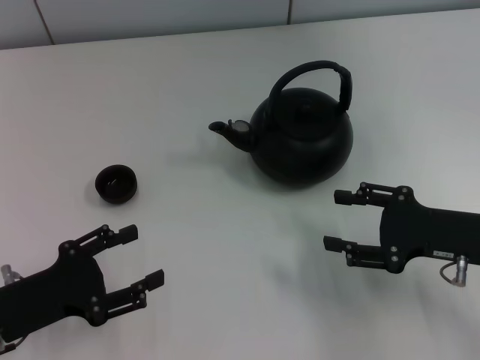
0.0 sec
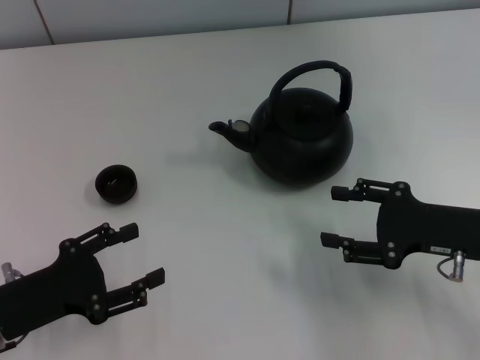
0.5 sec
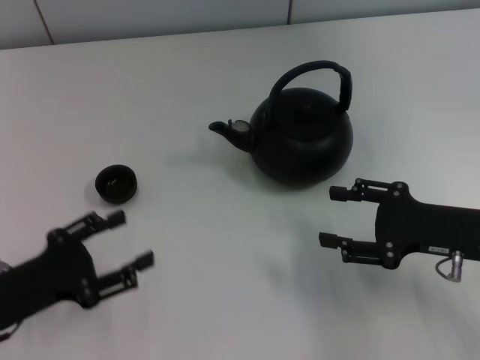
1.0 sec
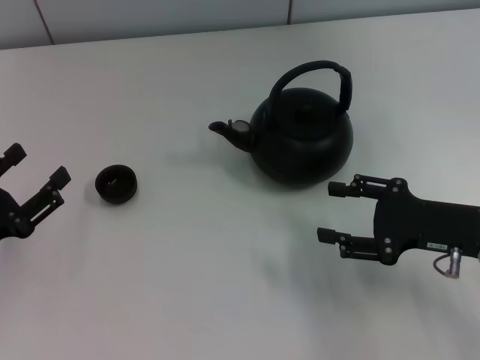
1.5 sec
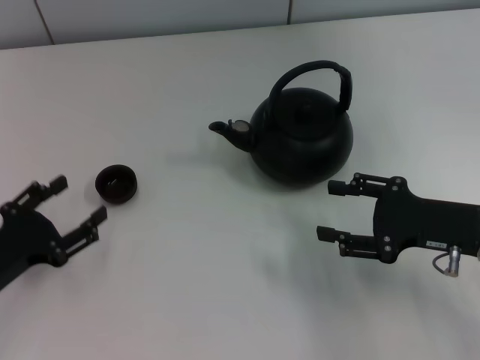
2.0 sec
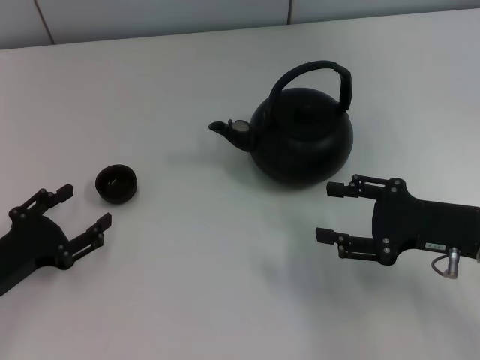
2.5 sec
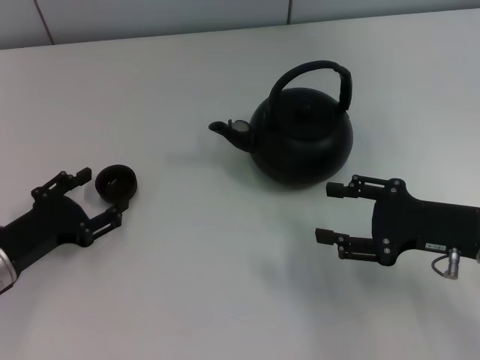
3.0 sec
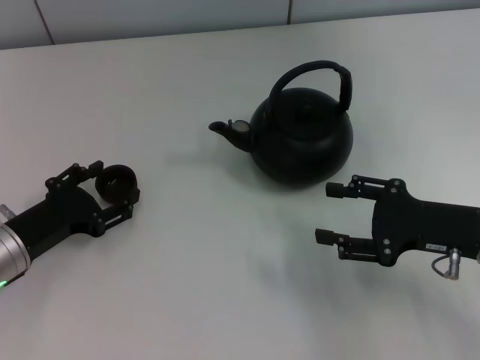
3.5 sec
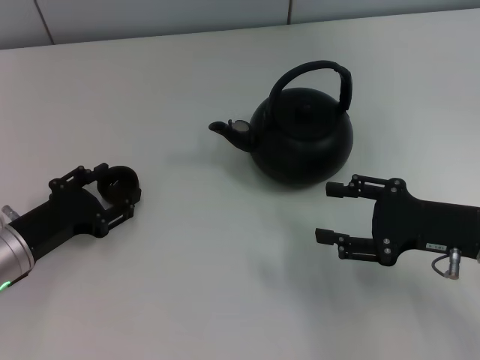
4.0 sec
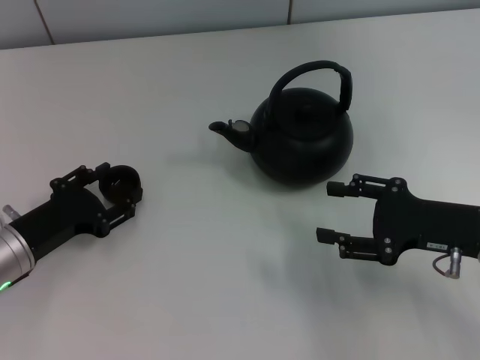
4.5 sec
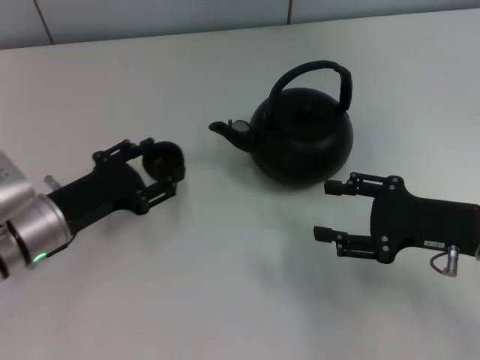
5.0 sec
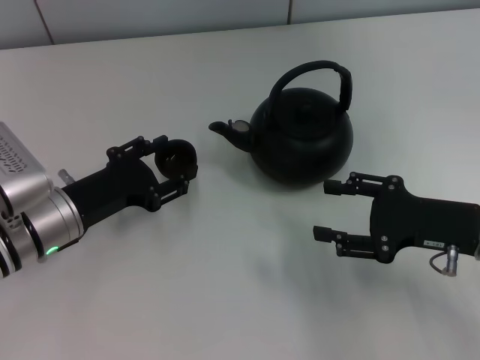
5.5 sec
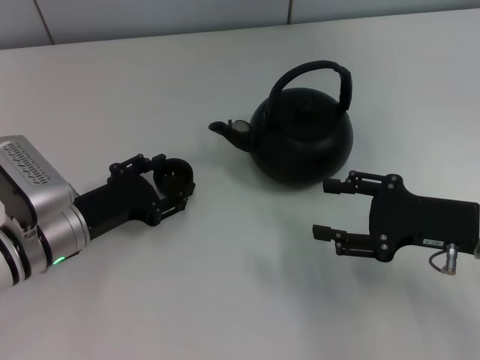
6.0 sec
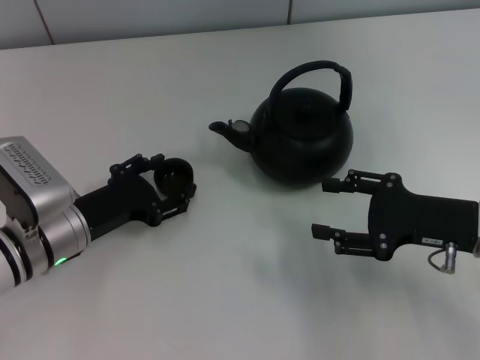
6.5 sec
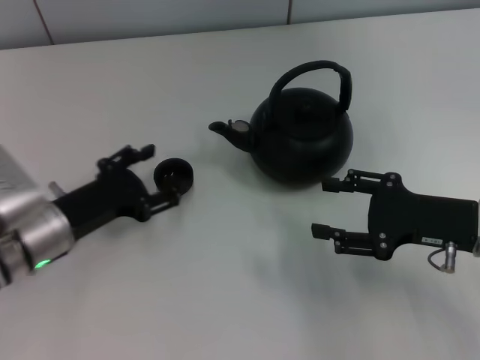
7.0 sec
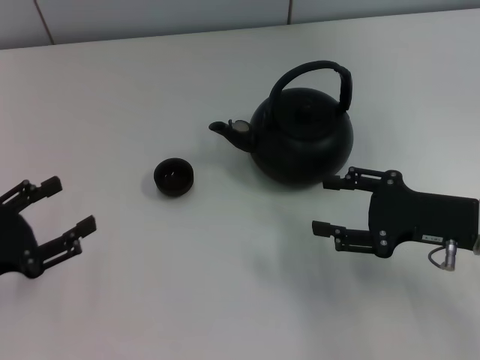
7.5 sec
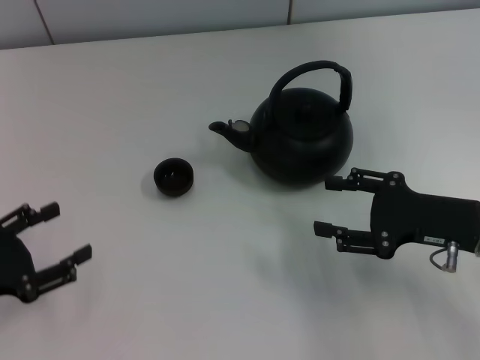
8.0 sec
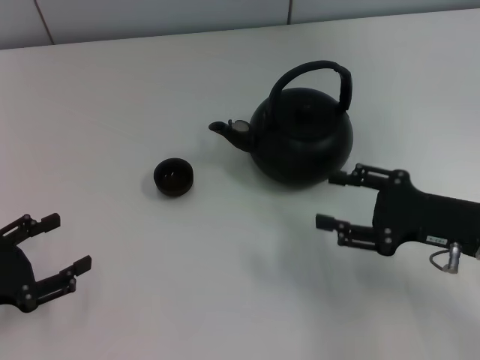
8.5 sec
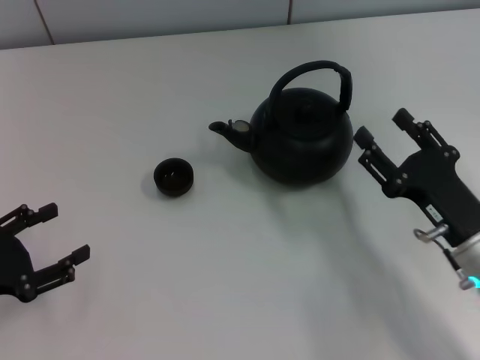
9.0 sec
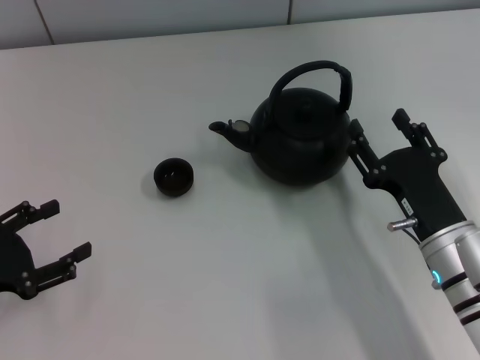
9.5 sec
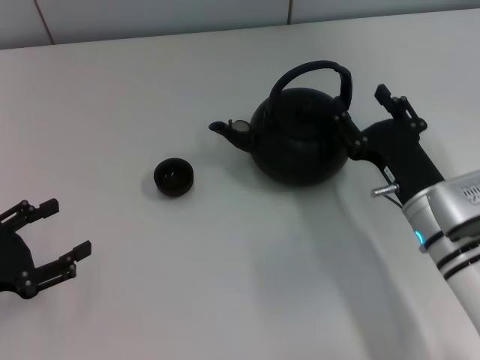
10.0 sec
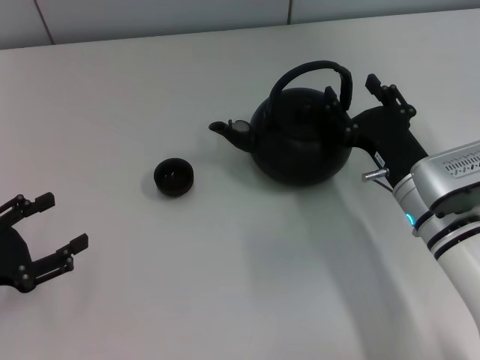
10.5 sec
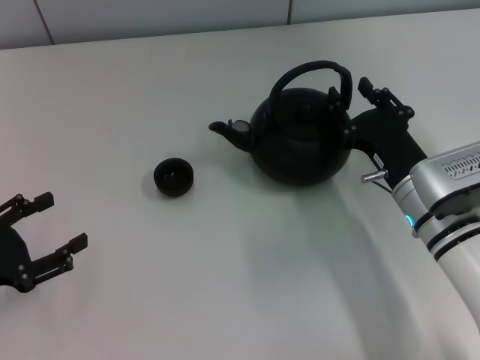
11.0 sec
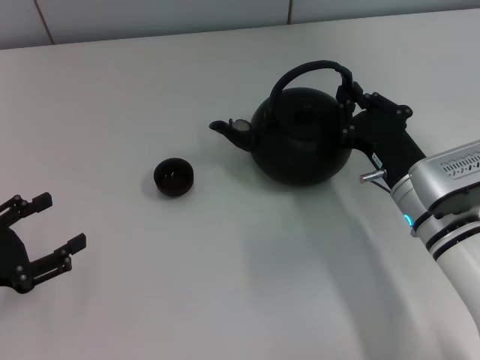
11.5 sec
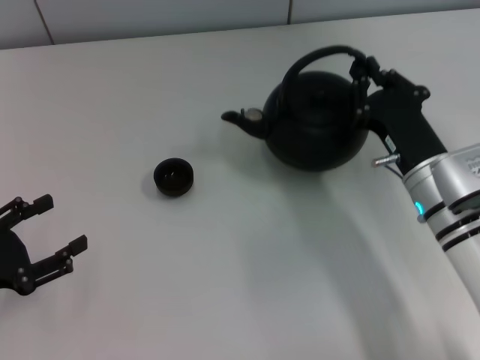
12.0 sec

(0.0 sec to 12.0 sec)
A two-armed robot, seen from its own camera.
Task of the whole recording: Grasp the handle of the teapot with one hand and pour tea into the teacup.
Step, 0.0 sec - 5.0 sec: Pick up the teacup with the left gripper.
Step, 5.5 sec - 7.0 sec: Place the teacup in the center of view with the left gripper.
2.0 sec - 4.0 sec: The left gripper is displaced forward by some 5 cm.
4.0 sec - 6.0 sec: The left gripper is displaced to the right by approximately 5 cm, and closes up.
6.0 sec - 8.0 sec: The left gripper heads to the left and backward, covering about 15 cm, and opens up.
8.0 sec - 10.0 sec: The right gripper goes roughly 10 cm to the left.
10.0 sec - 12.0 sec: The right gripper closes up.

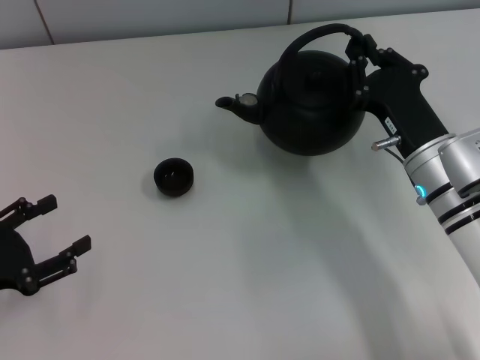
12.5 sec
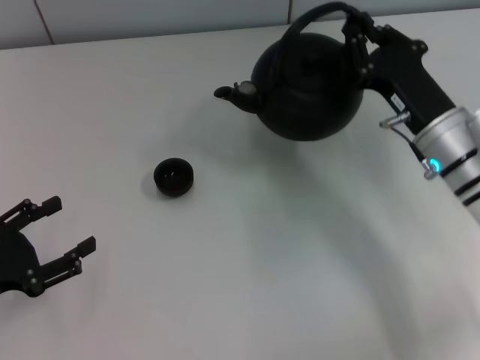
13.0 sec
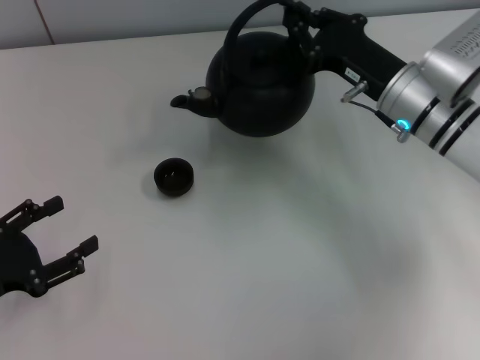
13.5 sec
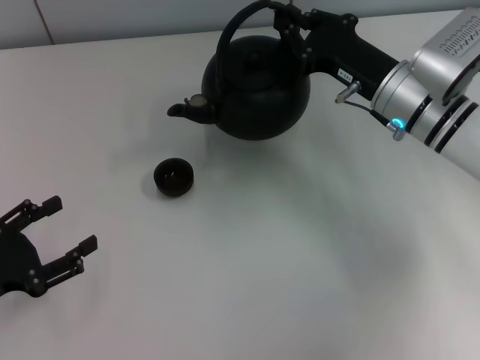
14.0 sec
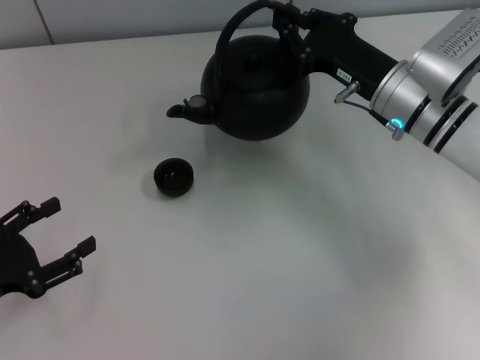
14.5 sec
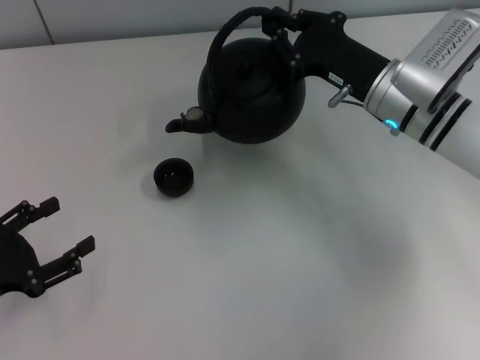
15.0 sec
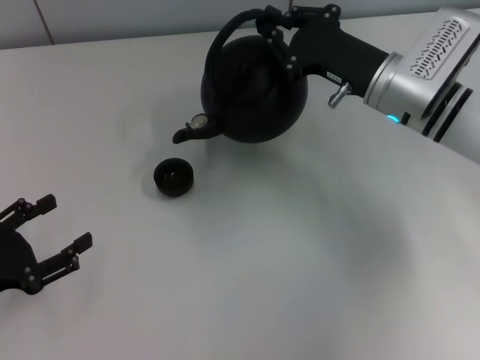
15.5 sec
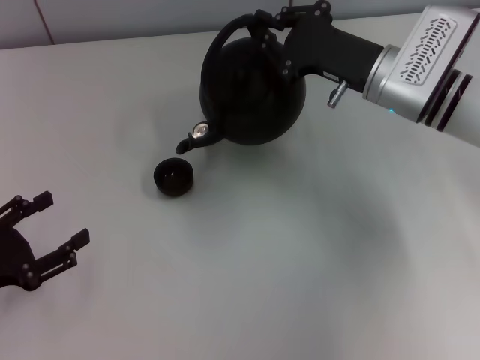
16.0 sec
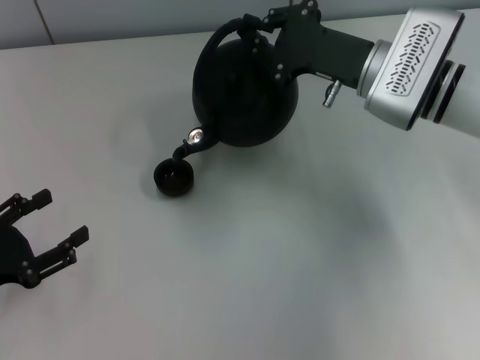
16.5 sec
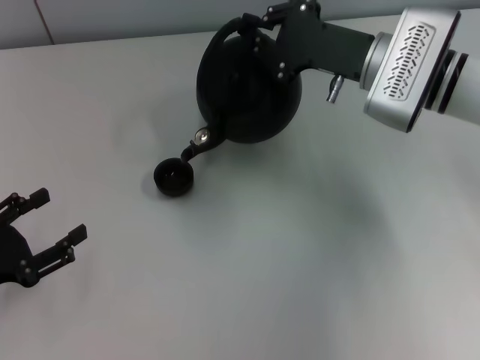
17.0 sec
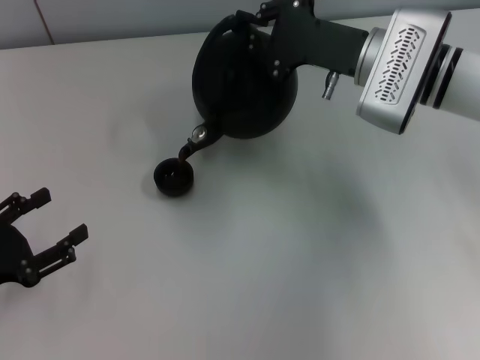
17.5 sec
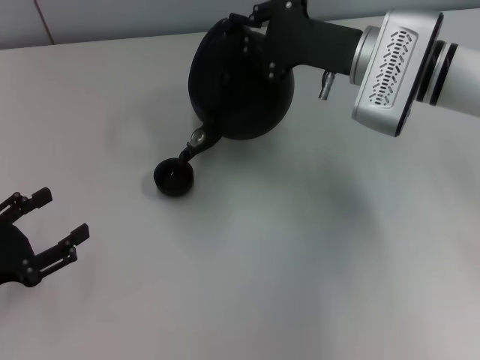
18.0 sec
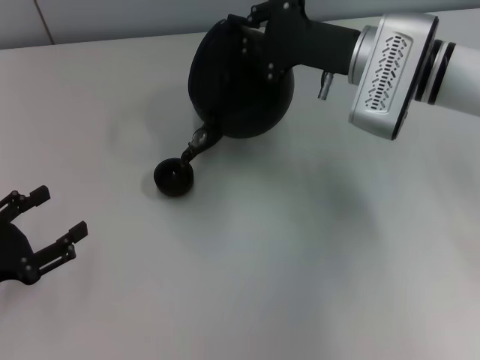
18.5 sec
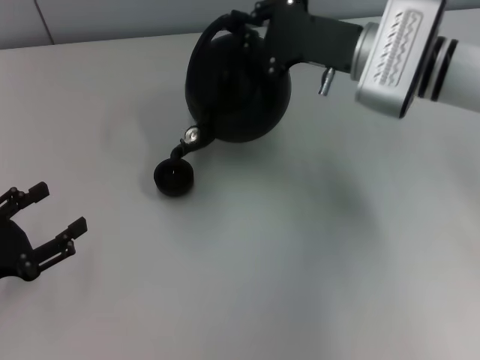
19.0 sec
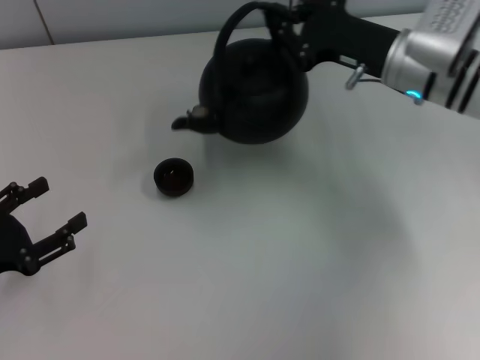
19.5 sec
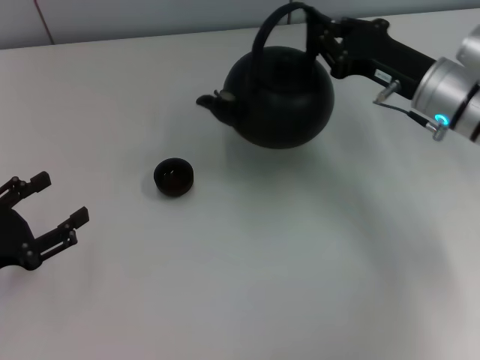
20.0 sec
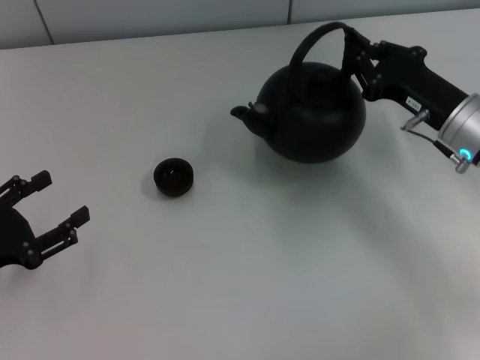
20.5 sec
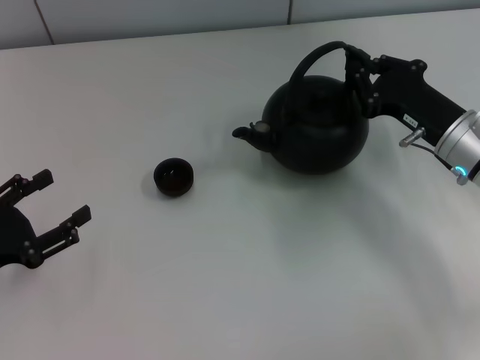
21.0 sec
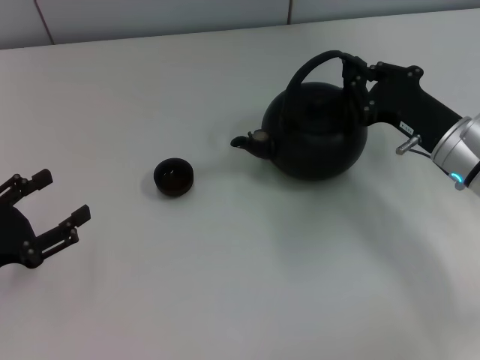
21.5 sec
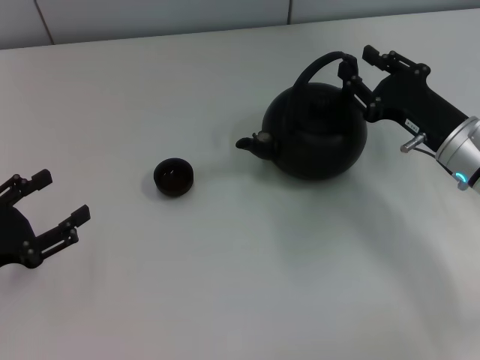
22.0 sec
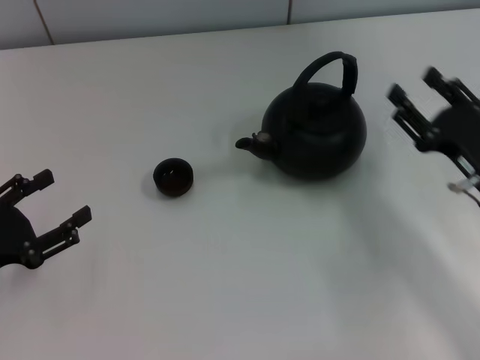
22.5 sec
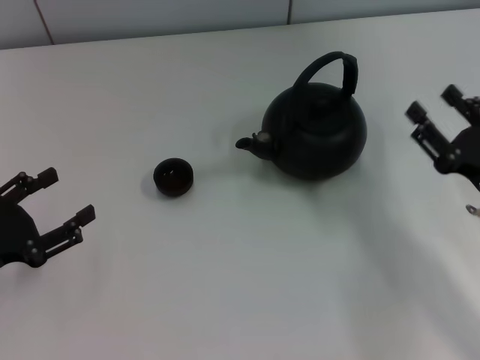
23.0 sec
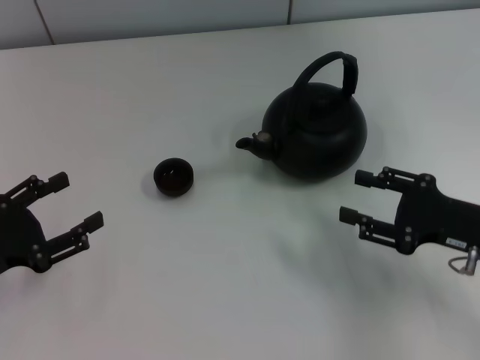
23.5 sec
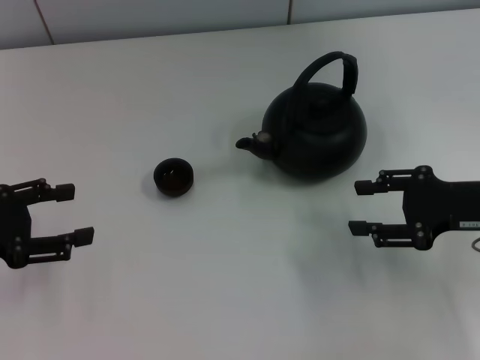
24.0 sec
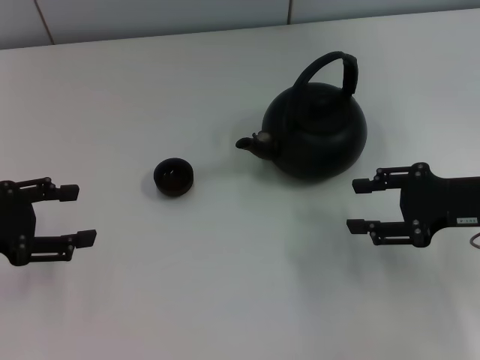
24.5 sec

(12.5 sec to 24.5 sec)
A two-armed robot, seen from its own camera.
Task of the whole recording: Grasp the handle of the teapot with one hand and pour tea into the teacup.
Step, 19.5 sec - 22.5 sec: Put down the teapot with the right gripper.
12.5 sec - 14.5 sec: The right gripper travels forward by roughly 10 cm.
16.5 sec - 18.5 sec: The grippers move only a little.
18.5 sec - 20.5 sec: The right gripper shifts about 10 cm to the right, backward and downward.
20.5 sec - 22.5 sec: The right gripper goes approximately 10 cm backward, and opens.
22.5 sec - 24.5 sec: The right gripper travels upward by roughly 5 cm, while the left gripper is displaced forward and upward by roughly 10 cm.

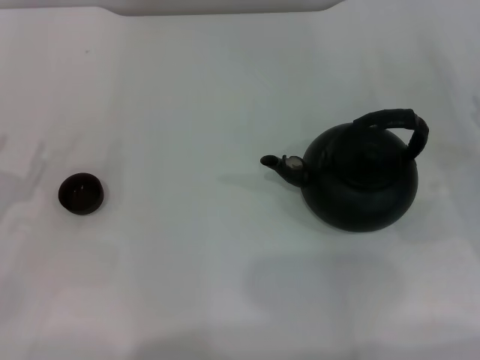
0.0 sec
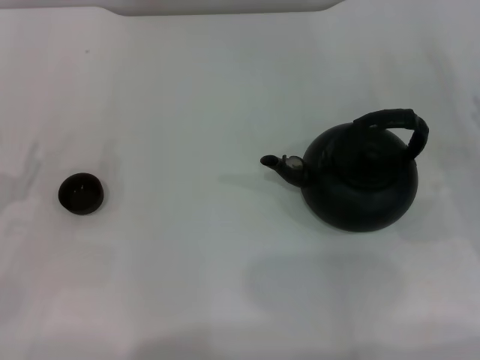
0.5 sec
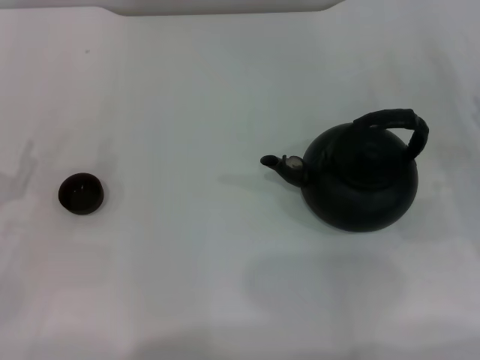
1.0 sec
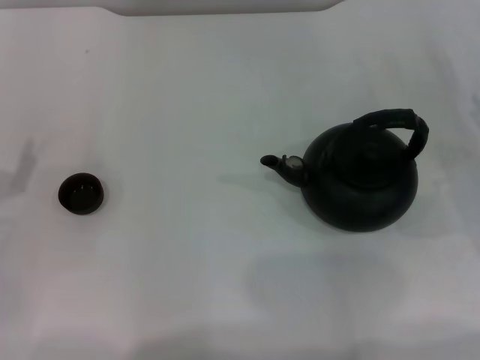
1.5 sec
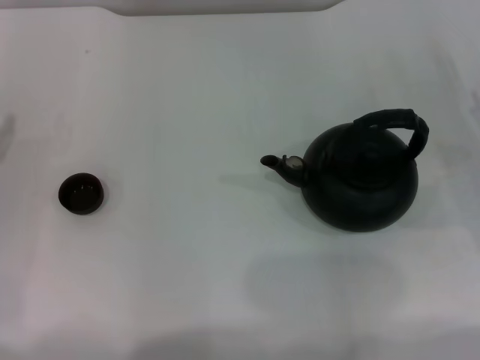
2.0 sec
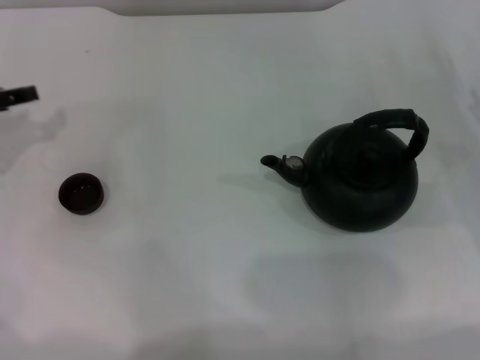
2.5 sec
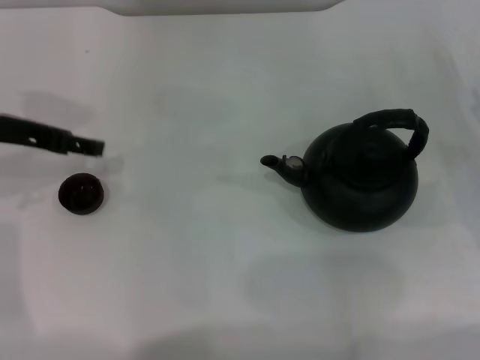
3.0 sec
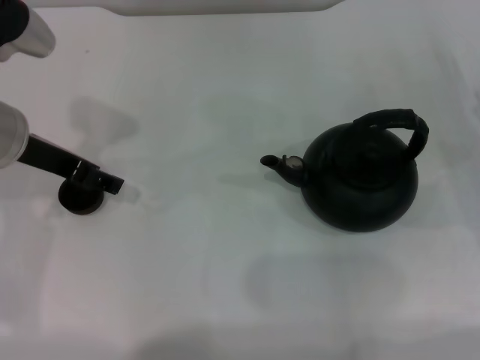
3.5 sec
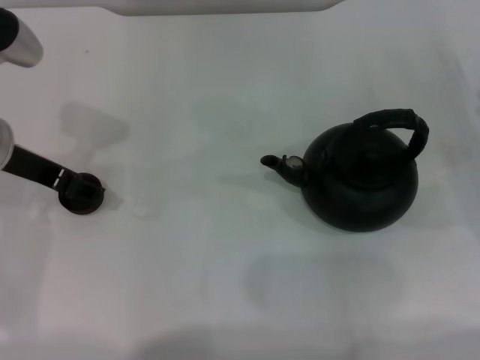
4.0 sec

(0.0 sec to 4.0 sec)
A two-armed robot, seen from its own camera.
Task of the whole recording: Grasp the handle of the teapot with one hand and pour tea into the teacup.
2.0 sec - 4.0 sec: The left gripper moves to the right and upward, approximately 20 cm, and opens up.
